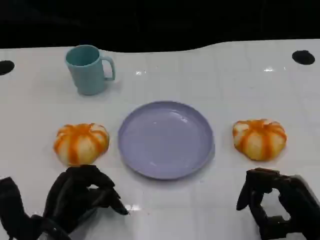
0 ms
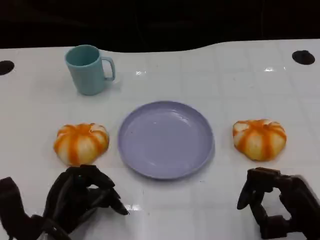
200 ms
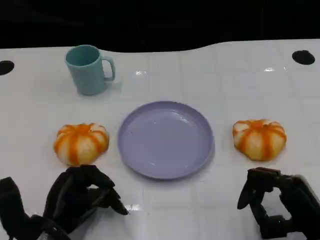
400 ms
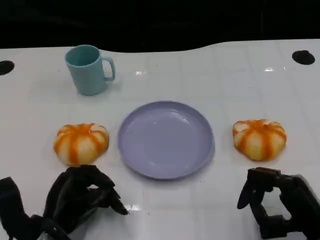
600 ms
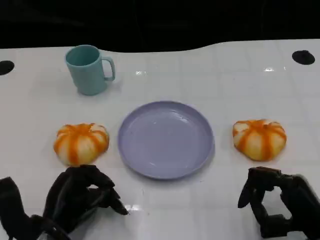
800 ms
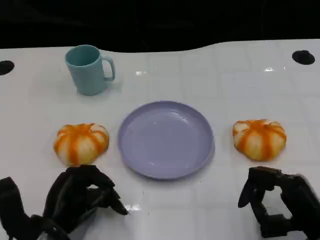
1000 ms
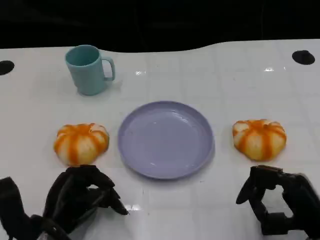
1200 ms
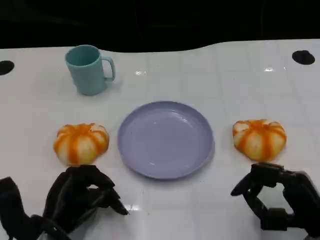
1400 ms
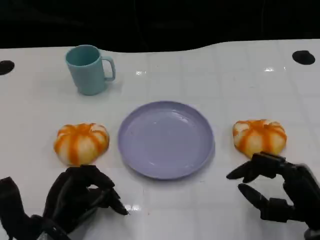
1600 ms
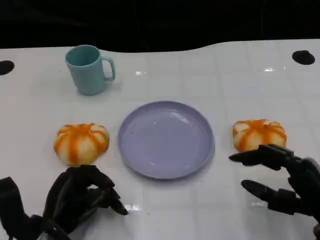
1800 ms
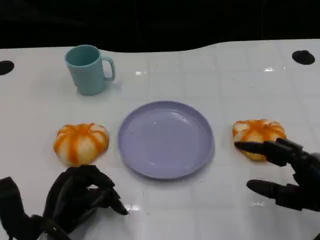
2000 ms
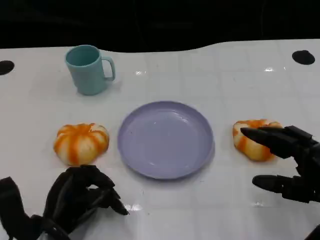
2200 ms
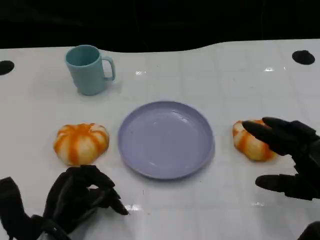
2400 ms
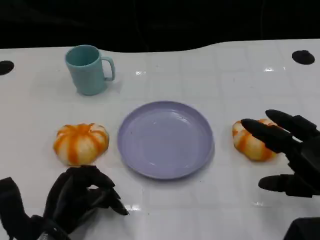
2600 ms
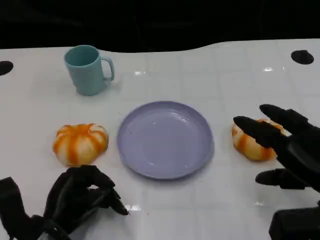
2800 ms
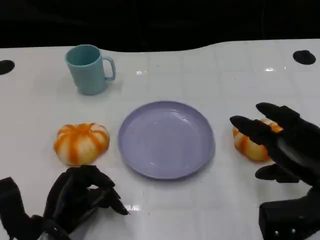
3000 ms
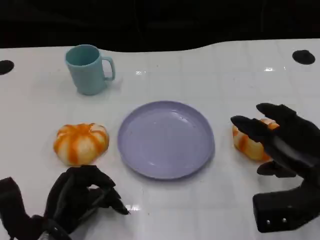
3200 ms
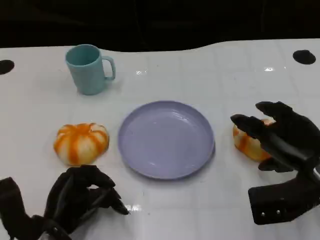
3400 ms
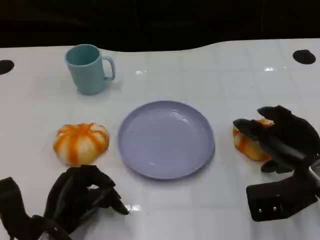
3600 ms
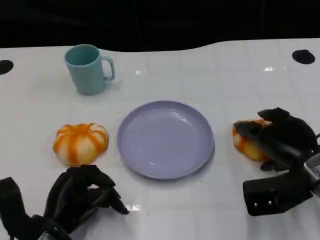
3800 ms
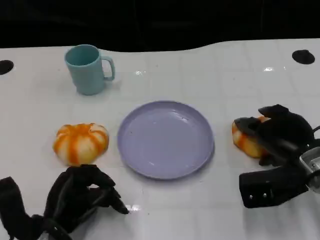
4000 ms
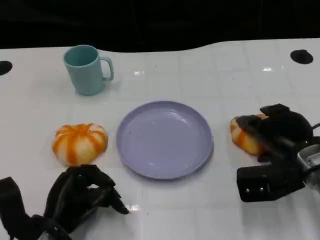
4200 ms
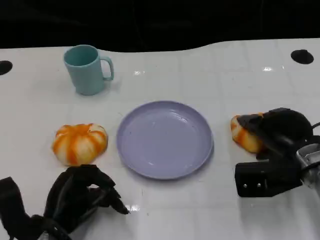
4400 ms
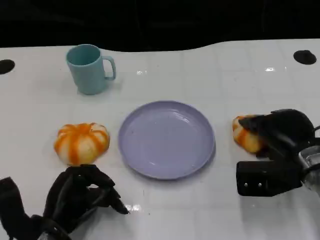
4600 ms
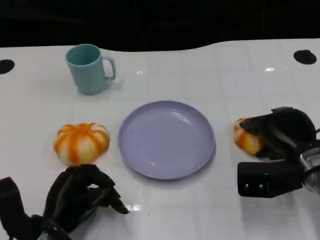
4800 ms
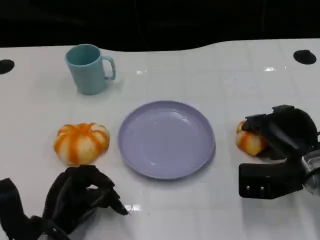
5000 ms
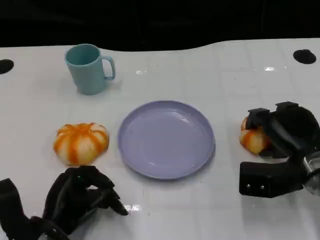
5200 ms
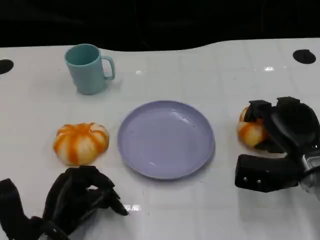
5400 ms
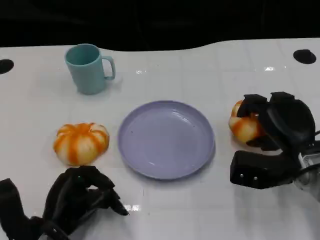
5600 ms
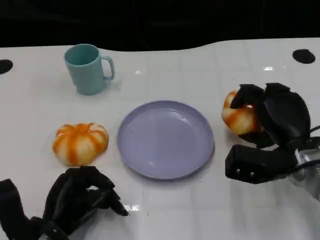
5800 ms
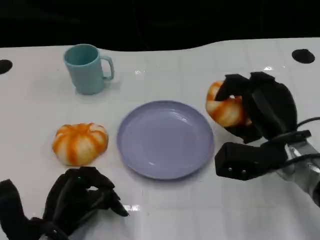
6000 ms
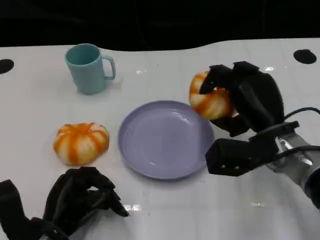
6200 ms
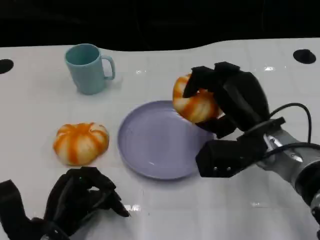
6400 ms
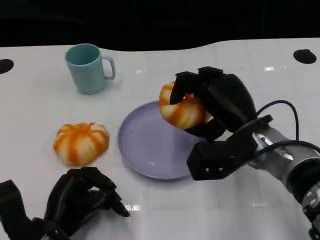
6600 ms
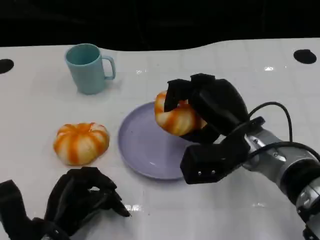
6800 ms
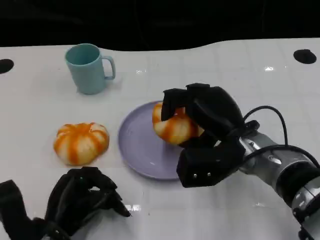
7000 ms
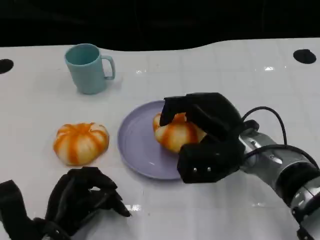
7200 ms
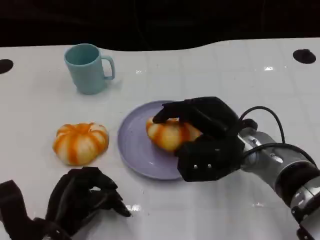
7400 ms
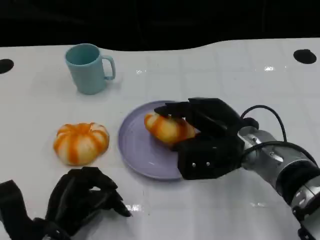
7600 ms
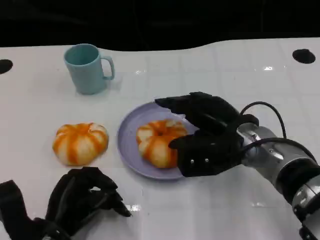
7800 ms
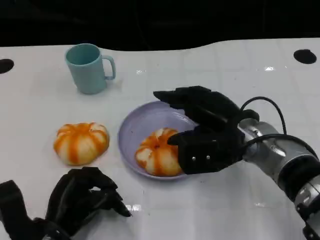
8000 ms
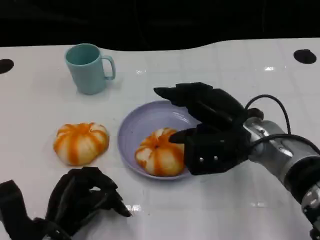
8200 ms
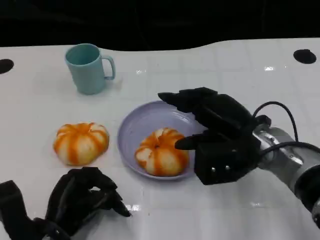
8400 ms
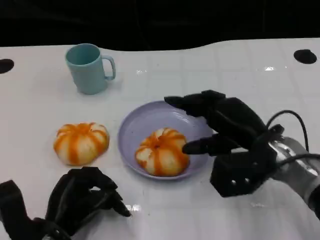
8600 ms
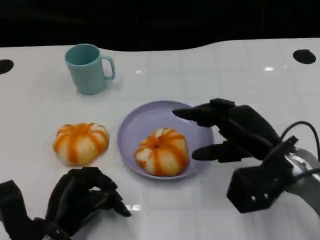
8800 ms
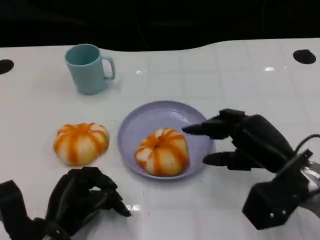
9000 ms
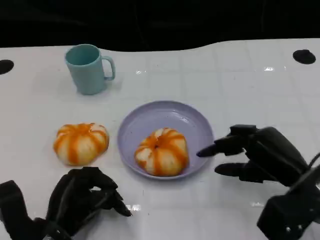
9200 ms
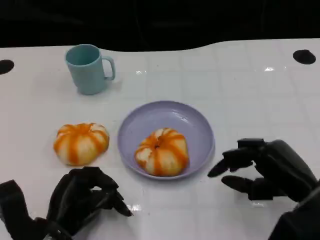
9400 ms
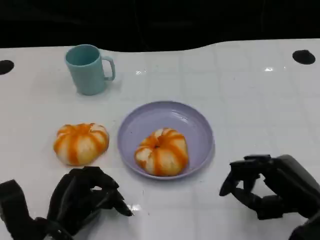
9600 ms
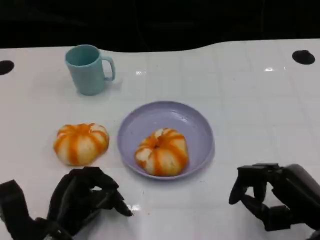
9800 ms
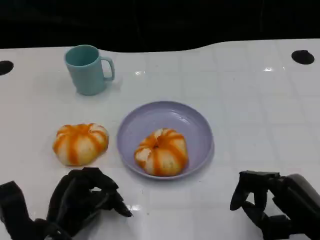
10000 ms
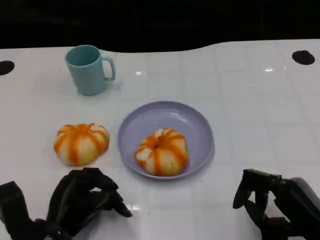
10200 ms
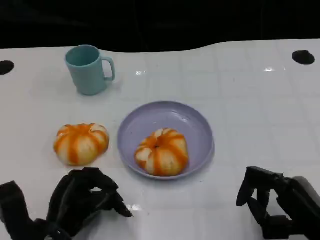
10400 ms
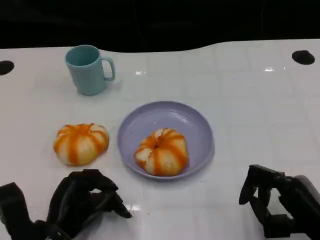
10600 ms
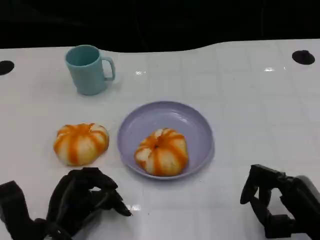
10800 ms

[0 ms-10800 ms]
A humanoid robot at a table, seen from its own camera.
Task of the whole recording: Grasp the bread from the table and place it into the plate.
0 ms to 1600 ms: There are only small adjustments of the hands.
1600 ms to 3000 ms: The right hand ends up about 5 cm from where it was.
3000 ms to 4600 ms: The right hand shifts approximately 5 cm forward.
4600 ms to 6200 ms: The right hand moves to the left, roughly 5 cm.
7800 ms to 9200 ms: The right hand travels to the right and backward by approximately 10 cm.
9200 ms to 10800 ms: The right hand is displaced backward by some 5 cm.

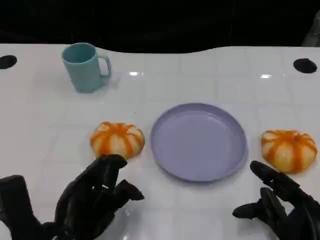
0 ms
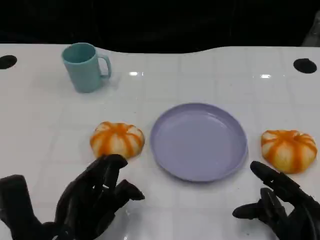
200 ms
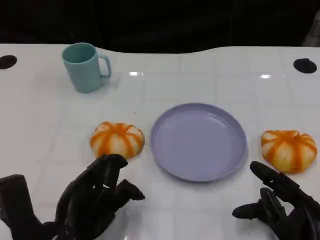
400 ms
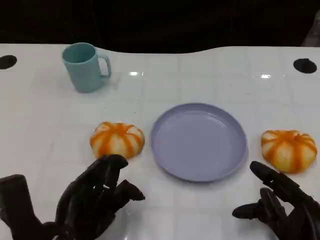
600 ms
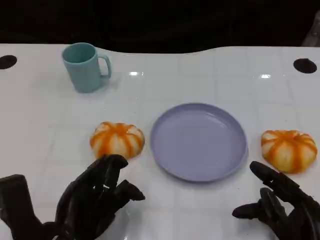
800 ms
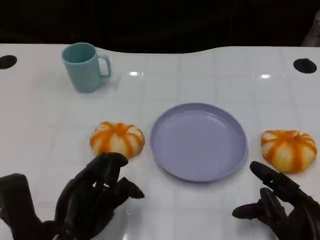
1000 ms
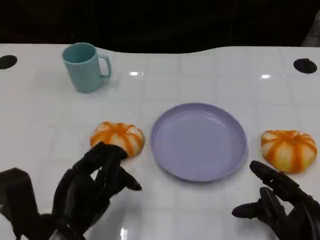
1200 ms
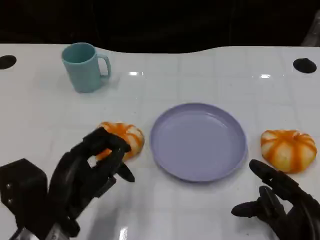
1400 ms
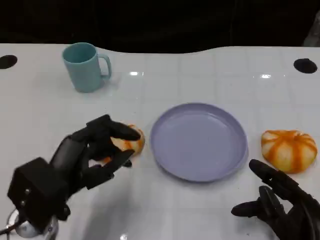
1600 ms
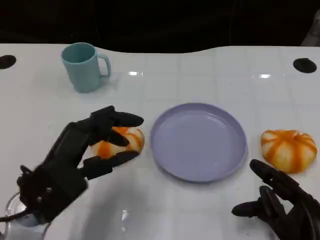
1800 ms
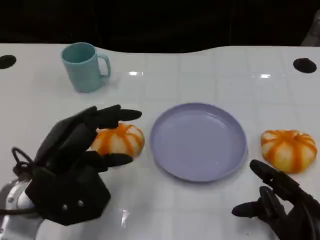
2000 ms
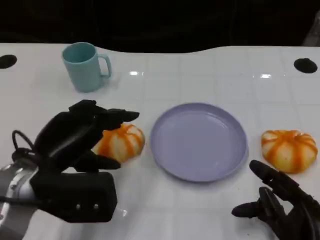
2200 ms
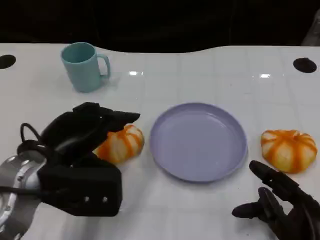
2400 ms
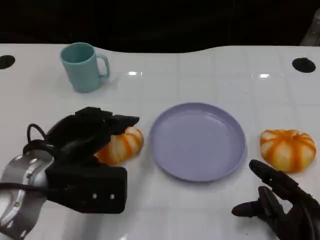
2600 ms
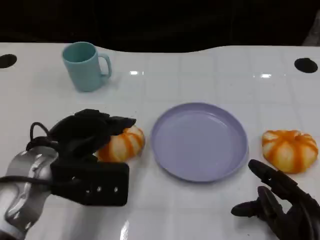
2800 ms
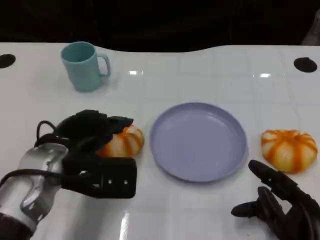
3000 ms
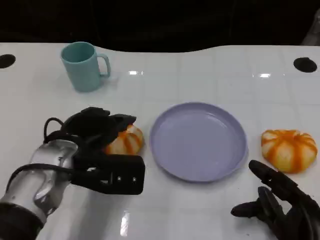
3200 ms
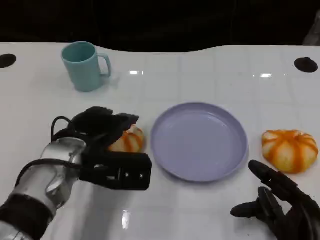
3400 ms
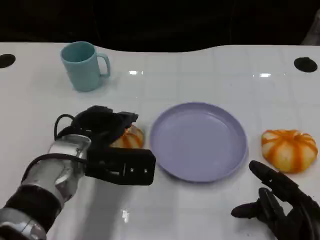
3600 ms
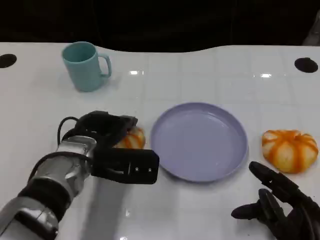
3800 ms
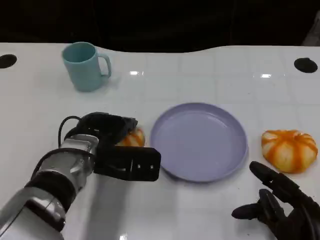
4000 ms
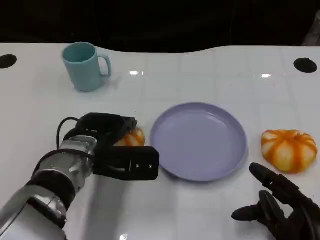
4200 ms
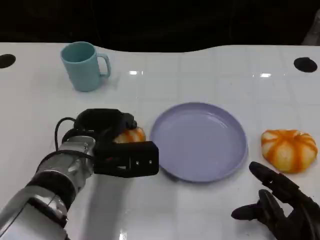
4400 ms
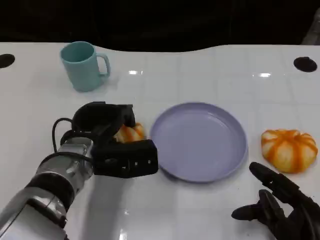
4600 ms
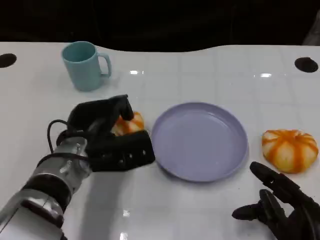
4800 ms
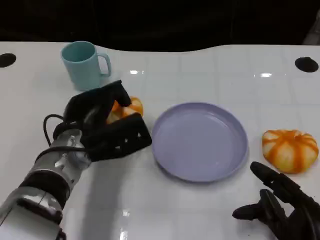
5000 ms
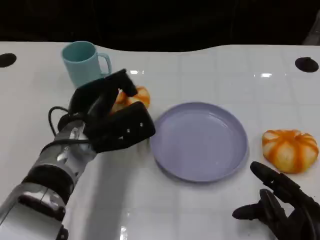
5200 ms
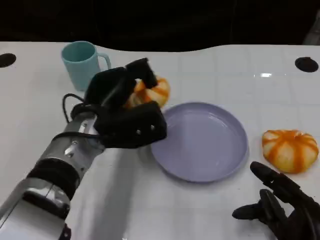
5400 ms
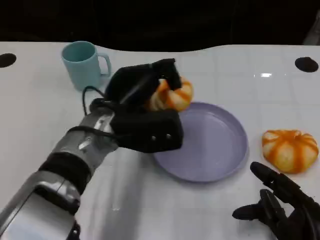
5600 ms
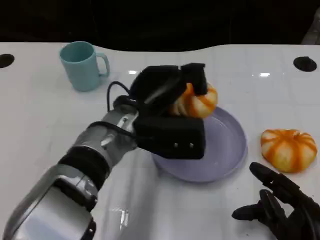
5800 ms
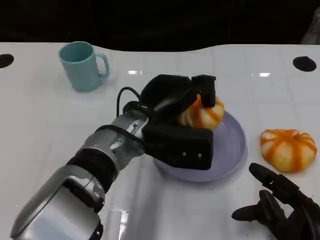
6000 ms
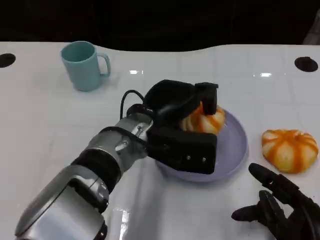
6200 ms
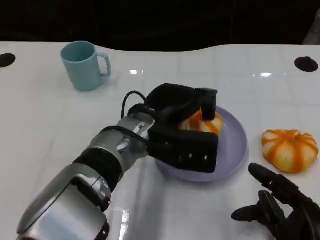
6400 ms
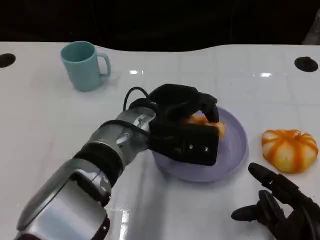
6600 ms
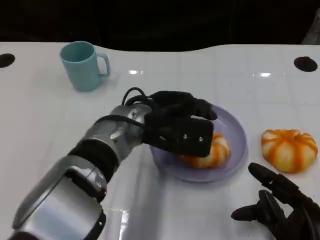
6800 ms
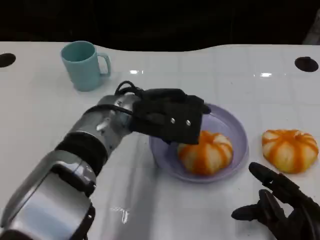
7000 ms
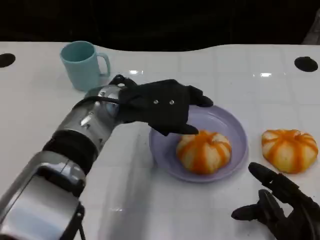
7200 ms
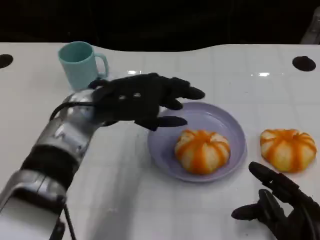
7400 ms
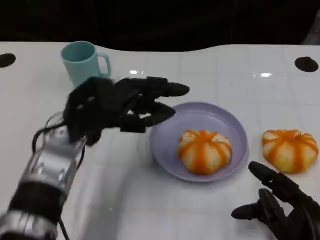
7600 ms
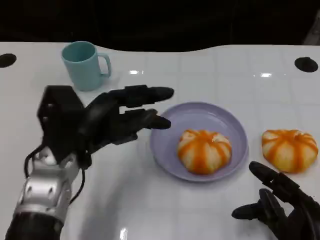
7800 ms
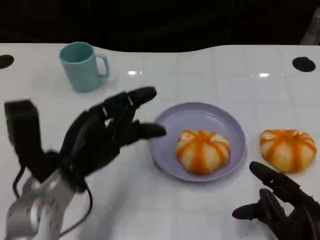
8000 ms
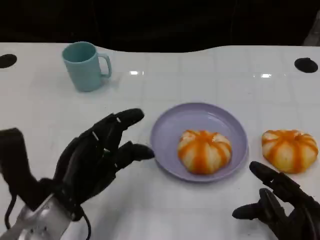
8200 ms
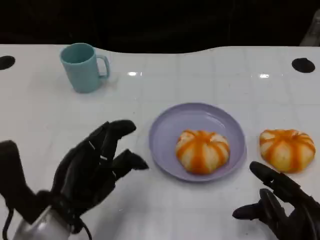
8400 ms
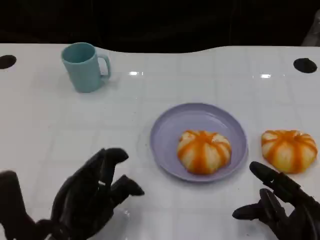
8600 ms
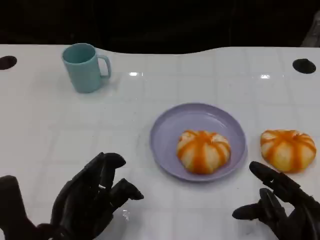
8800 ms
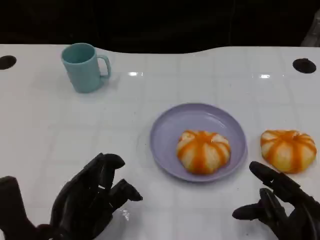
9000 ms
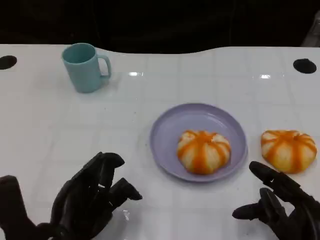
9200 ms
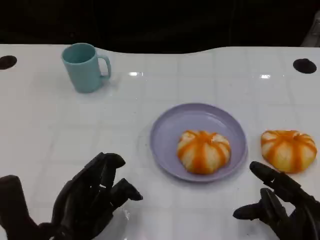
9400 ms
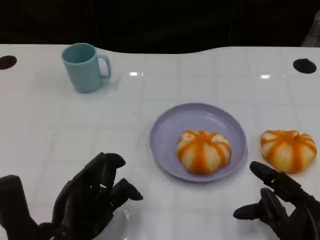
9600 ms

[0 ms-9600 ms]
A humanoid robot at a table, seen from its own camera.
Task of the whole recording: Grasp the bread from the table and place it into the plate.
0 ms to 1600 ms: The left hand changes place by some 5 cm.
1600 ms to 3200 ms: The left hand shifts roughly 10 cm forward.
4800 ms to 6400 ms: The left hand goes some 10 cm to the right.
6400 ms to 8000 ms: The left hand is displaced to the left and backward by some 15 cm.
8000 ms to 9600 ms: The left hand heads backward, covering approximately 5 cm.

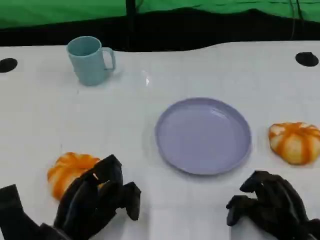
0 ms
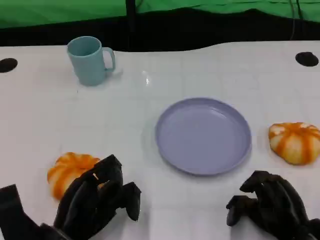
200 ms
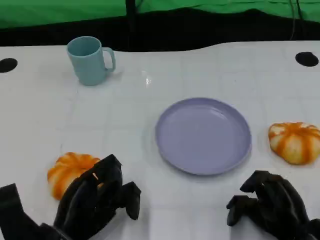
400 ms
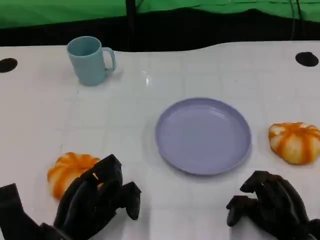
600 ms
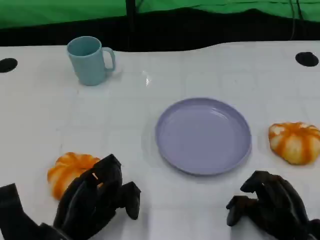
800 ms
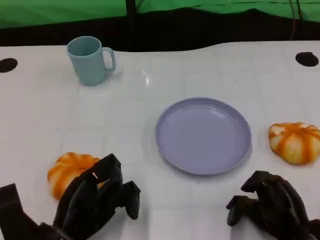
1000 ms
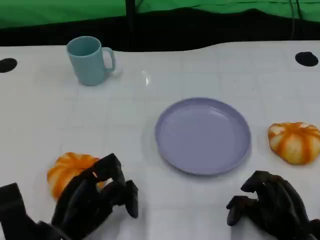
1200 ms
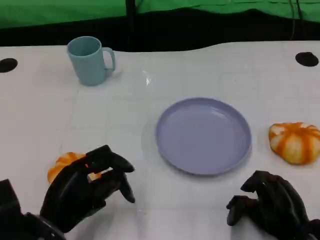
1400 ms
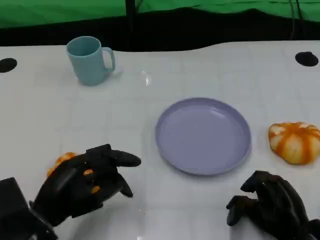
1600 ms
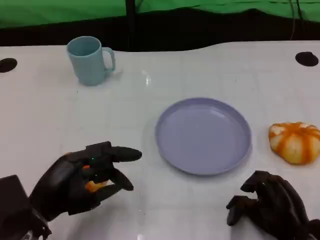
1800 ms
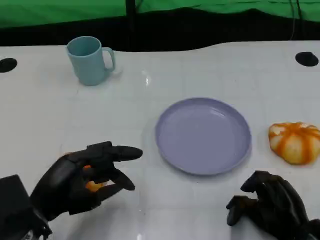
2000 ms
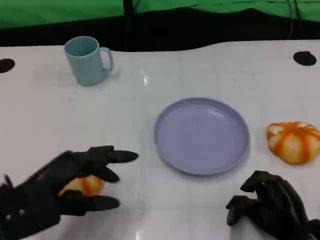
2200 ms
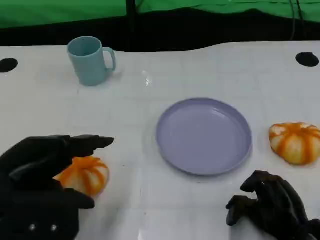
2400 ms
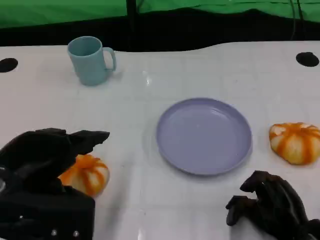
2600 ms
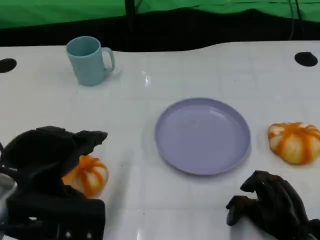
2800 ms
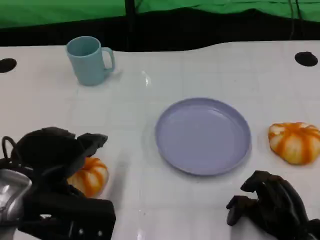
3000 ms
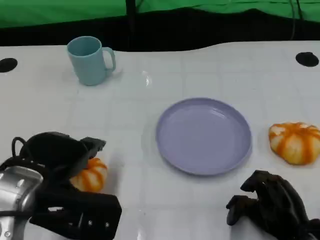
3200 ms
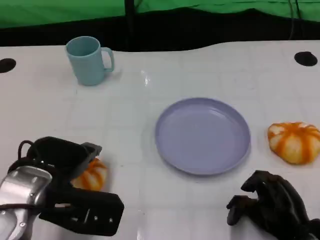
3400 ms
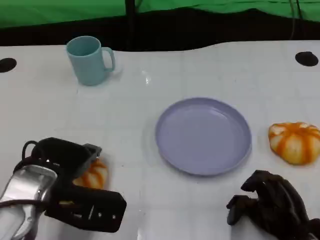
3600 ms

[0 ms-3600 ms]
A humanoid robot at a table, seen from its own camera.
Task of the whole recording: Grasp the bread from the table and place it into the plate.
0 ms to 1800 ms: The left hand moves about 5 cm.
1800 ms to 3600 ms: The left hand travels upward and back again, approximately 10 cm each way.
